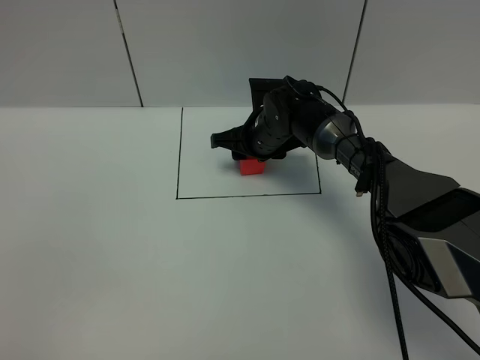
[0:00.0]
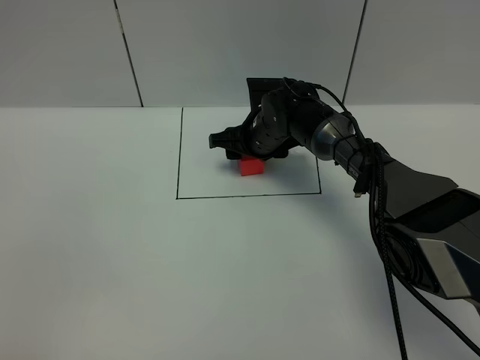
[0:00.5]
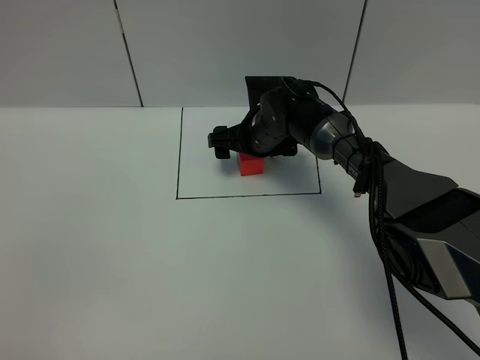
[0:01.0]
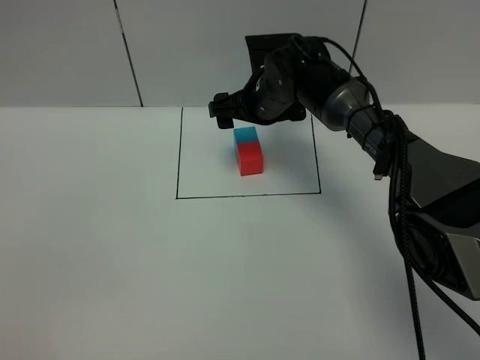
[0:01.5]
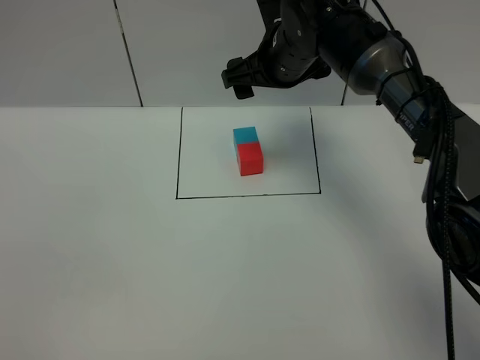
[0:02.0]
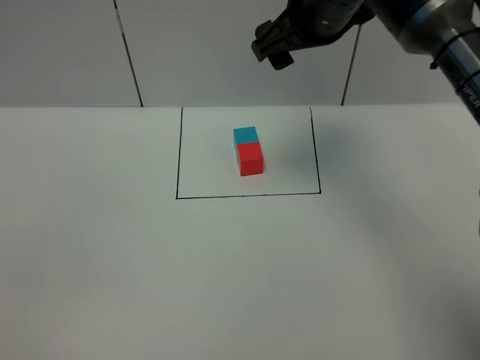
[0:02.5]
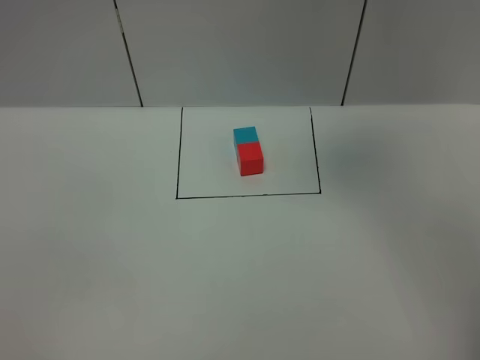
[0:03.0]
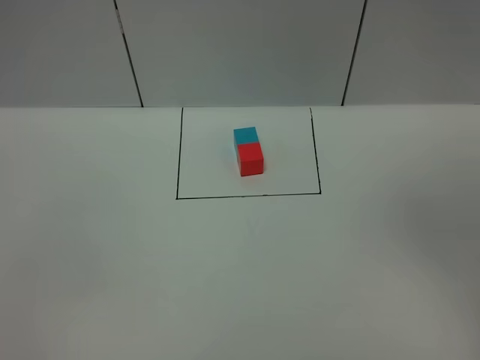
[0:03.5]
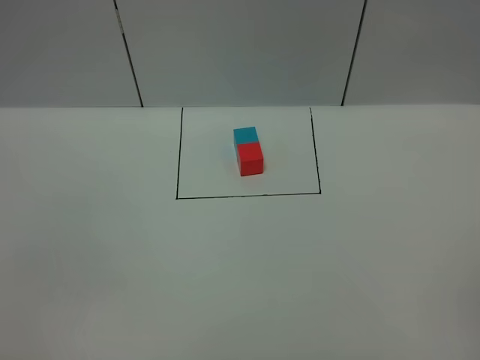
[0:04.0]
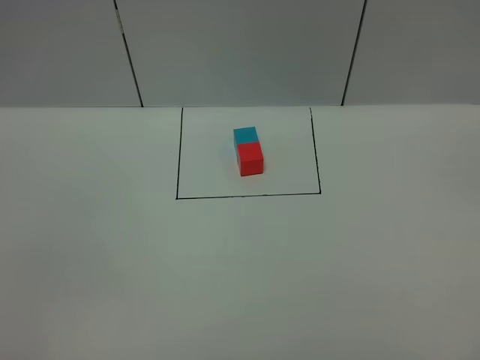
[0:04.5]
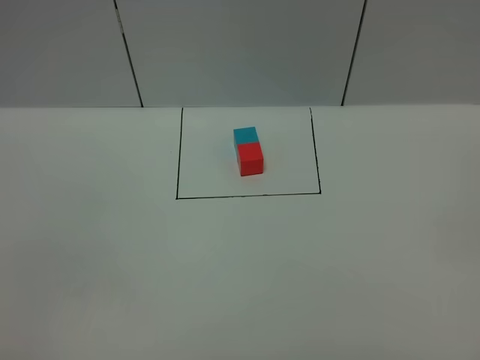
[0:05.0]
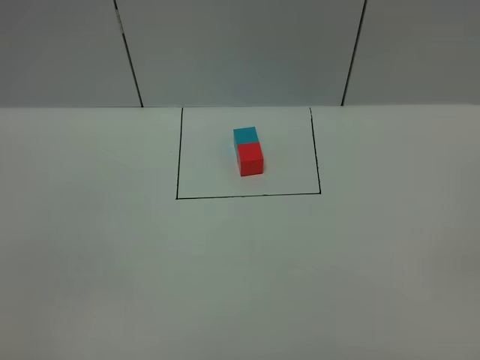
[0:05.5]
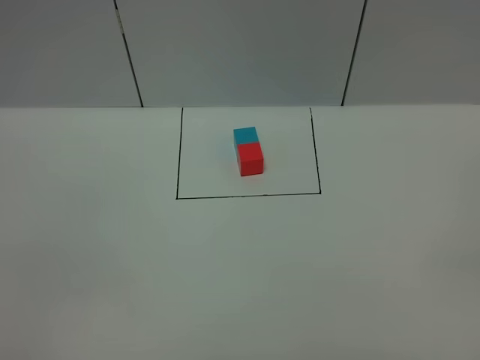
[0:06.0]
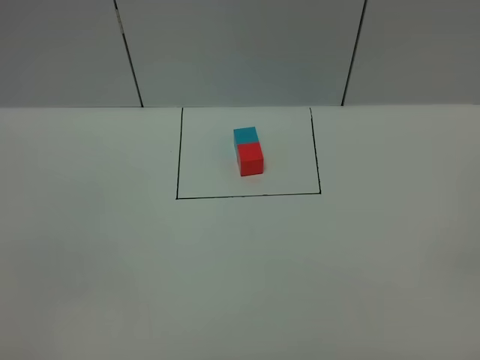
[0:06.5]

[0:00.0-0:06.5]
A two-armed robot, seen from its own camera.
Task of the whole recording: According to the building block template in front, assemble the scattered blocks together.
Step, 0:00.0 to 0:02.0: Adjust the pose of the building blocks.
0:00.0 to 0:02.0: The right gripper goes roughly 15 cm upward, and opens.
0:02.0 to 0:04.5: The right gripper heads backward and to the right, covering some 50 cm.

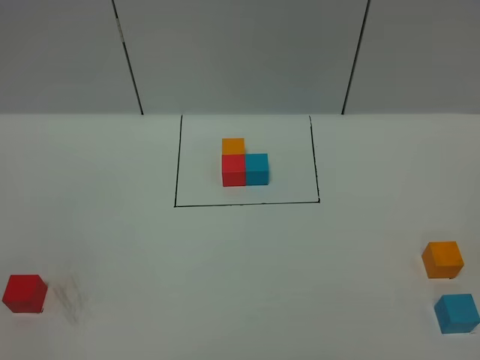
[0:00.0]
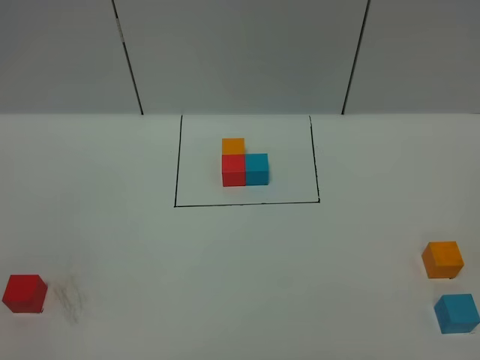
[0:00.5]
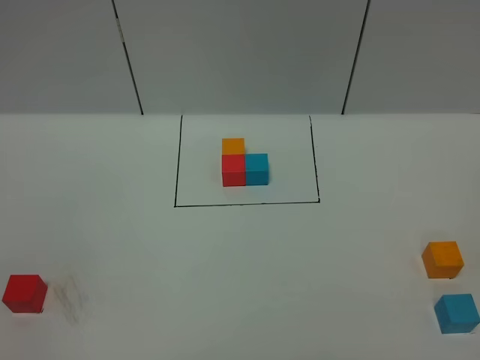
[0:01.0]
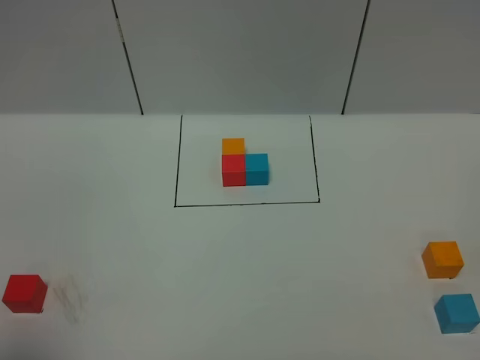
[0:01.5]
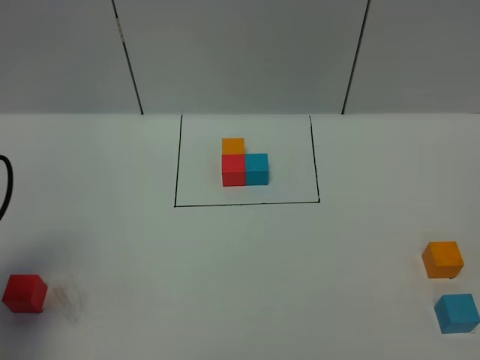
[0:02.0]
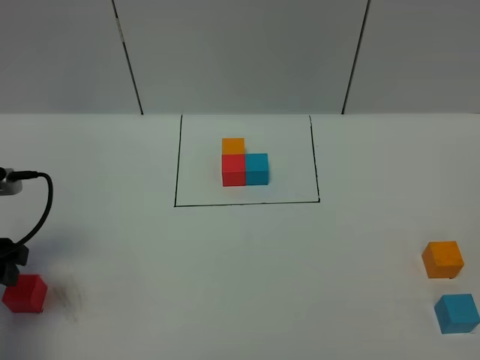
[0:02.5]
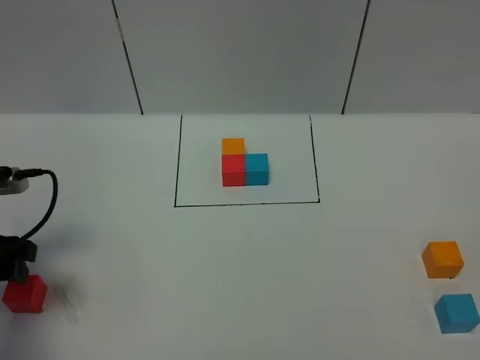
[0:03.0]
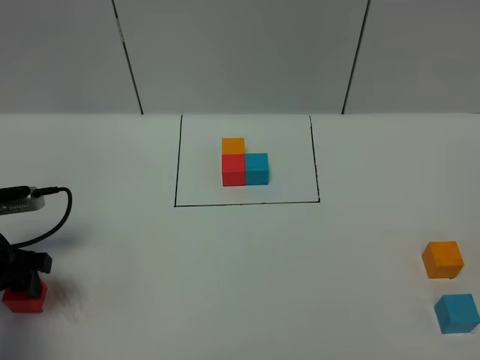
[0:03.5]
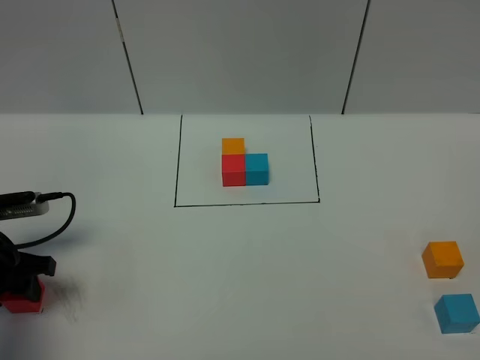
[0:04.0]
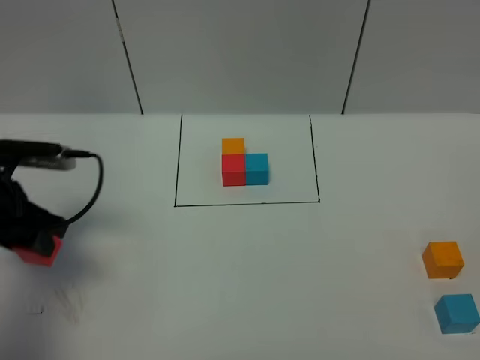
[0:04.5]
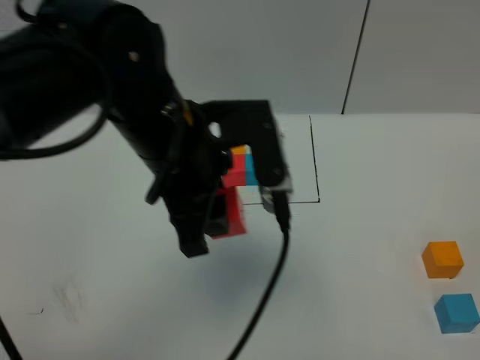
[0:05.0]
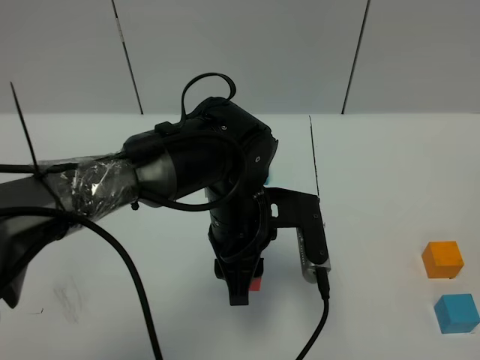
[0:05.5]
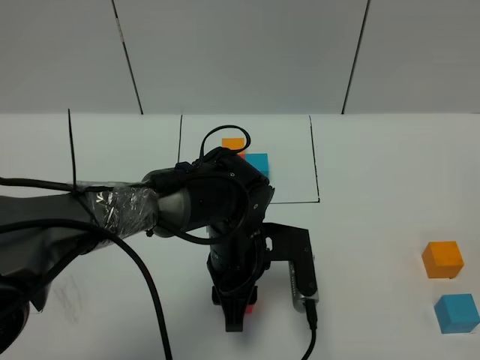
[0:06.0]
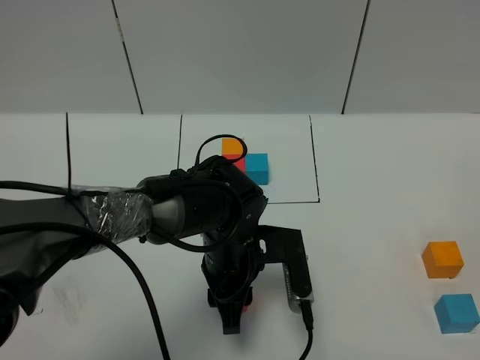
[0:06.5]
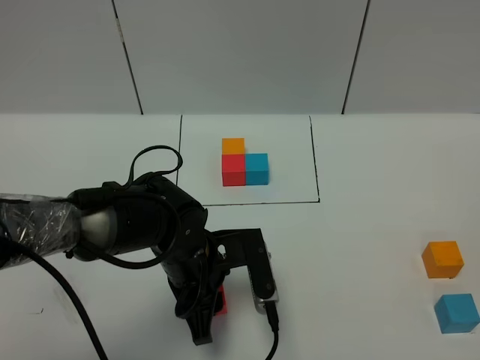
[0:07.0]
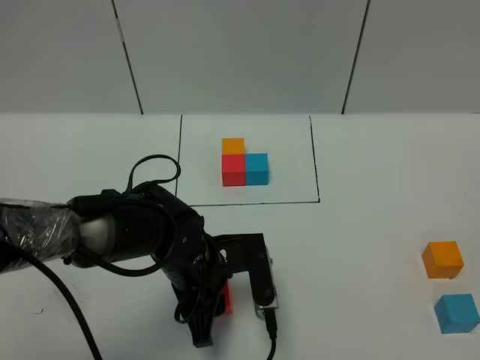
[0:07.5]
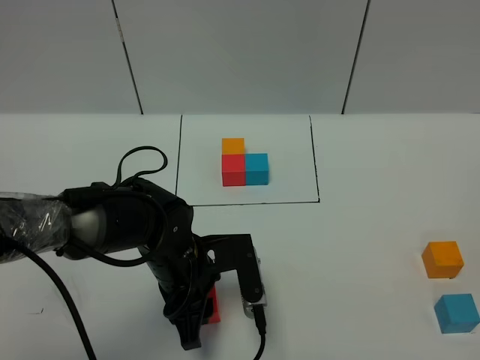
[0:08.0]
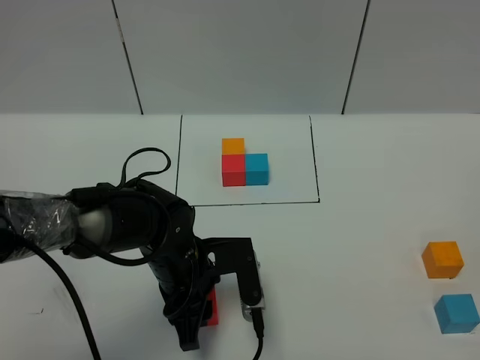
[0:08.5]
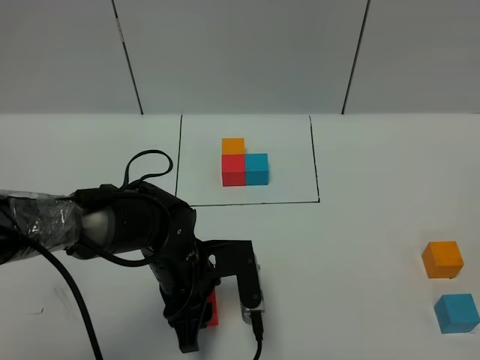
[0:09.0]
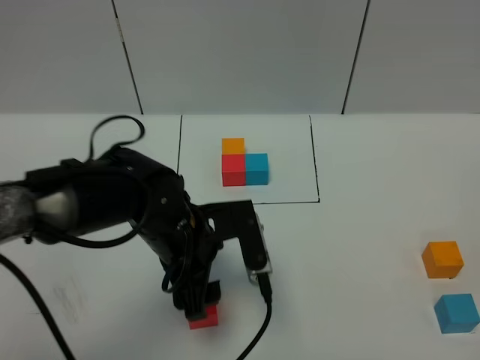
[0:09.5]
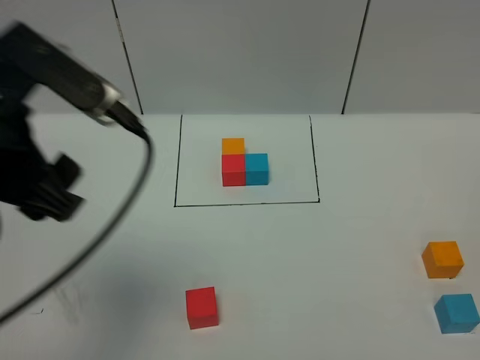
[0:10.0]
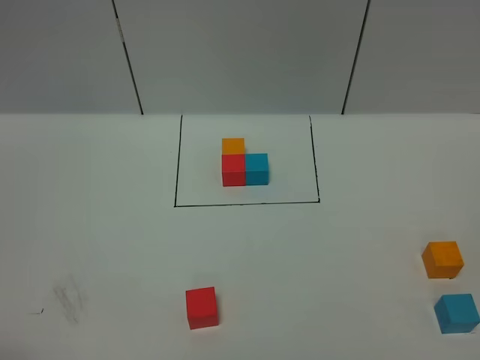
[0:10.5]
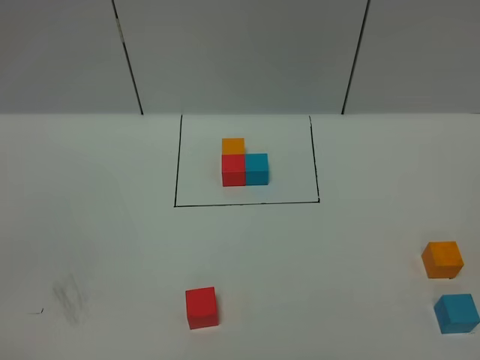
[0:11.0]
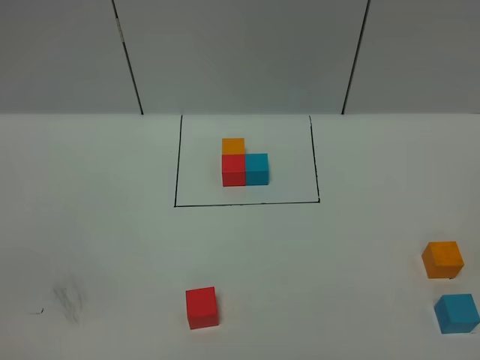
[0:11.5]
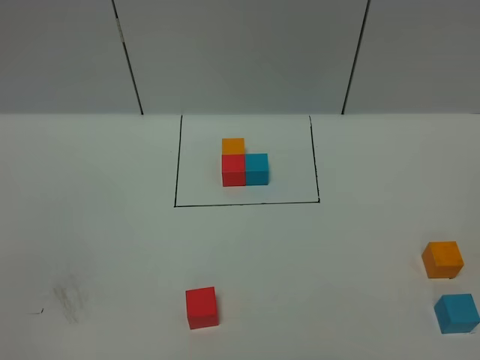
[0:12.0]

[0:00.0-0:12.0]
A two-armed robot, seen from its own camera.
Task of the whole recording: According to the building block template in front, assemble the scattered blocks together.
Step, 0:02.0 to 0:09.0: Put the red cube in the center of the table.
0:00.0 to 0:02.0: The left gripper moves forward, some 25 cm.
0:02.0 to 0:04.0: The left gripper travels downward and forward by about 15 cm, and closes up.
0:04.0 to 0:06.0: The left gripper travels to the right by some 30 cm.
0:06.0 to 0:08.0: The left gripper travels to the left by about 5 cm.
0:08.0 to 0:10.0: The left gripper heads upward and to the left, covering some 30 cm, and opens its fingers.
0:10.0 to 0:12.0: The left gripper travels backward, downward and to the left by some 25 cm.

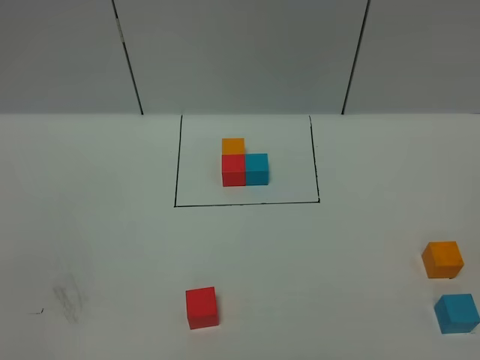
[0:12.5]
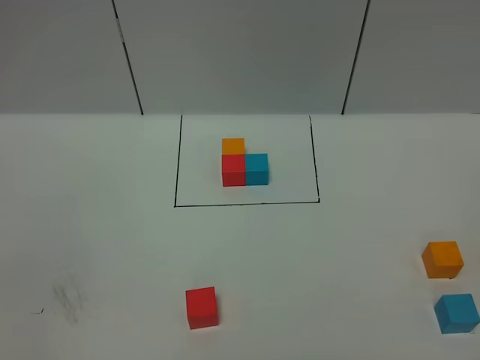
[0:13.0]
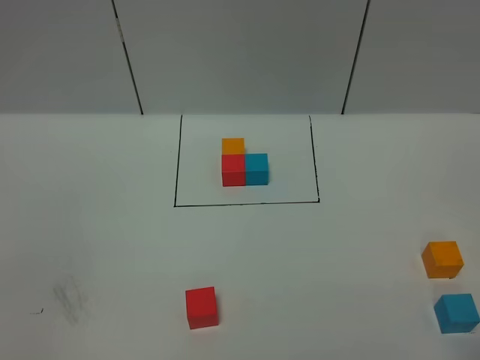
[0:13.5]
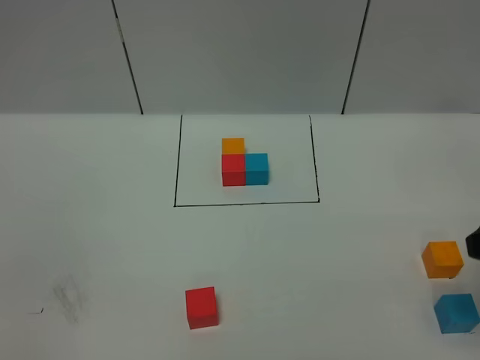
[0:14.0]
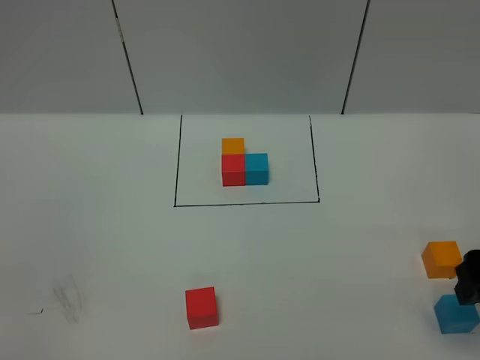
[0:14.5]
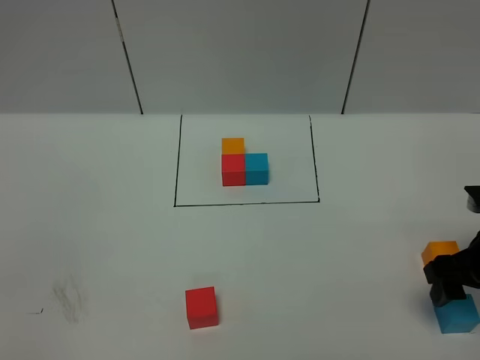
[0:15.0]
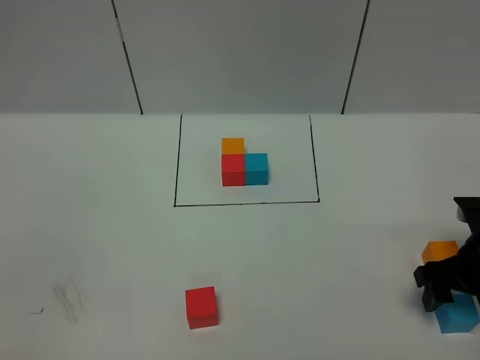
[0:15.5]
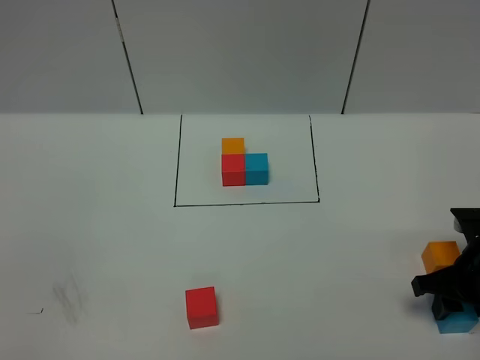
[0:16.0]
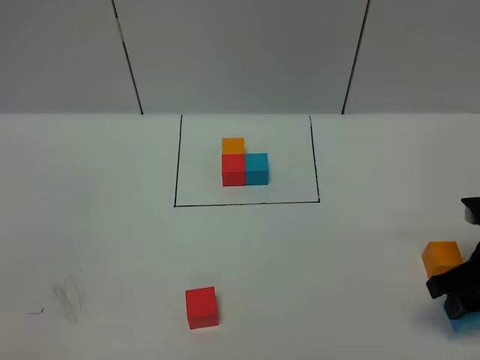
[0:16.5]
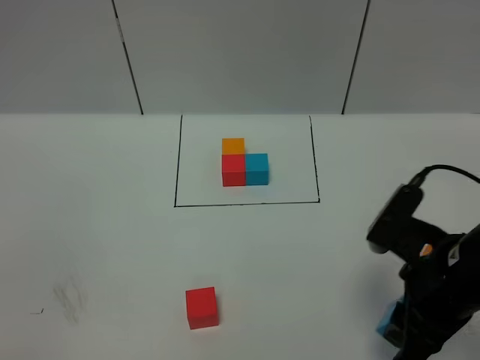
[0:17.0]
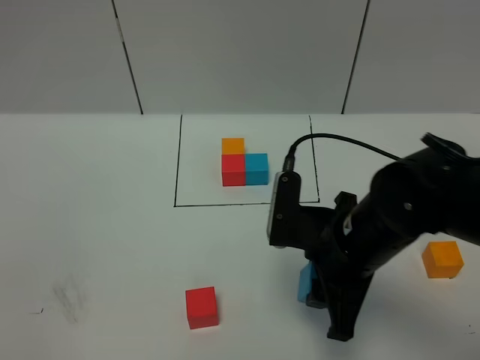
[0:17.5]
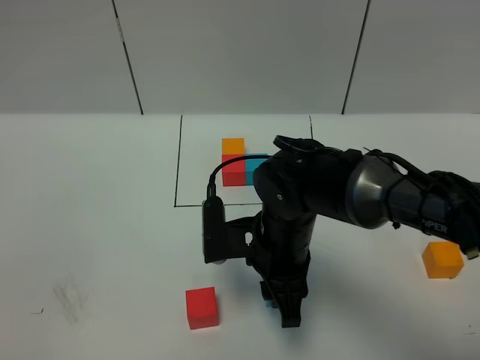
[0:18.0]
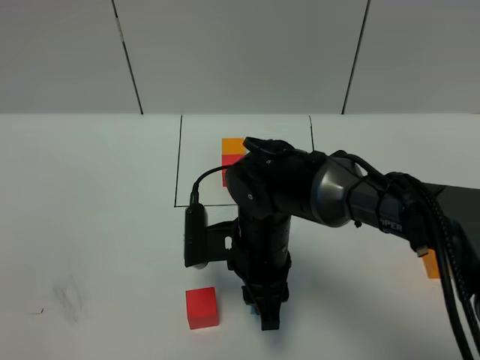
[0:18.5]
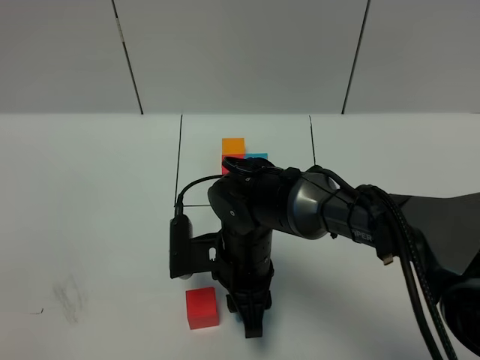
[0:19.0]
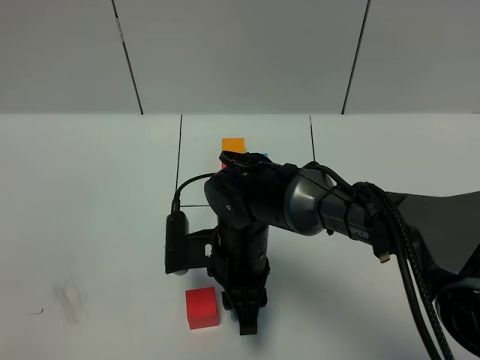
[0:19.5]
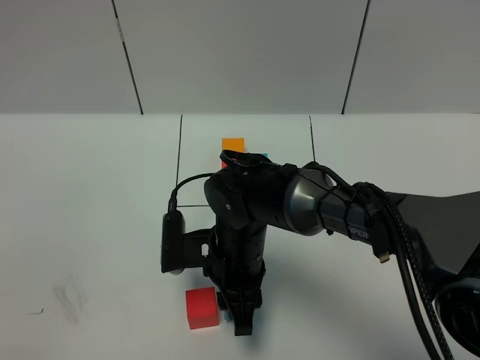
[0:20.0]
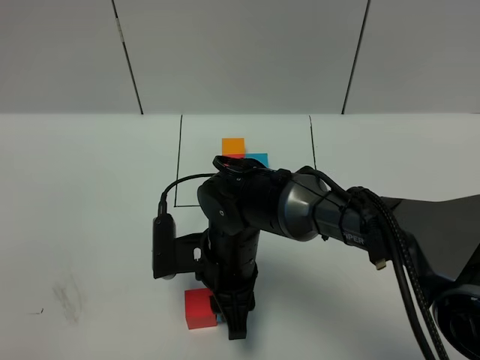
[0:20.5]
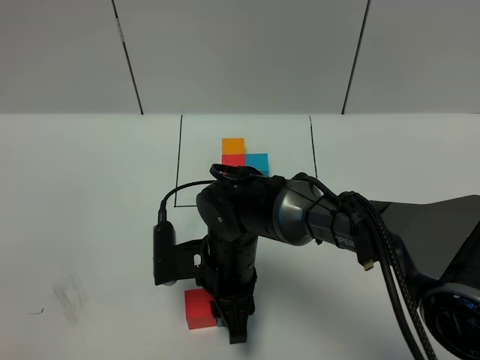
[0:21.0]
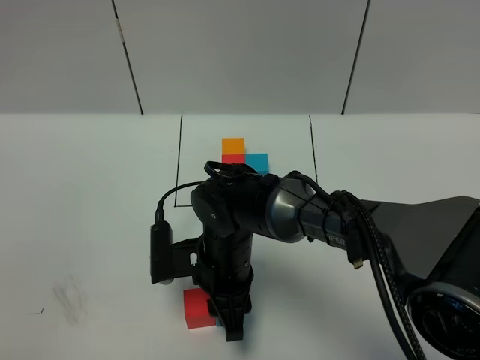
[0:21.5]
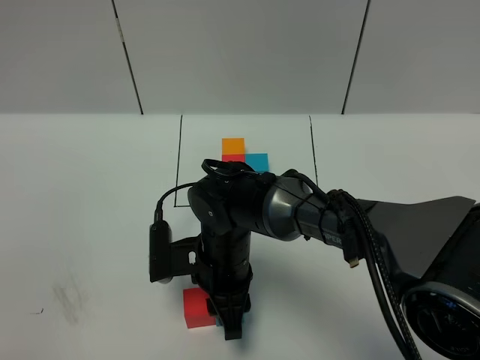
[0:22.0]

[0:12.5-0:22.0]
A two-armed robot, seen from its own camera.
Task of the whole recording: According to the building block template in front, assemble the scattered blocks together.
0:12.5 to 0:14.5: The right gripper moves forward, approximately 25 cm.
0:14.5 to 0:16.5: The right gripper heads downward, covering some 5 cm, and closes.
0:16.5 to 0:18.0: The right gripper travels to the left by some 25 cm.
0:18.0 to 0:20.0: The right gripper changes place by some 5 cm.
0:20.0 to 0:22.0: The grippers move only a little.
